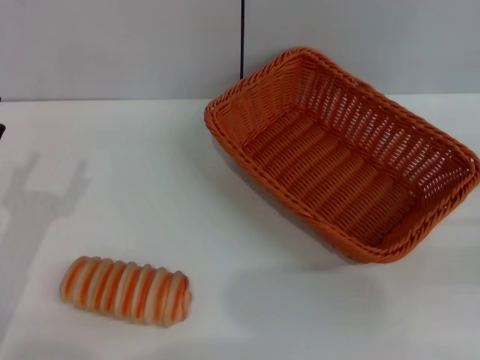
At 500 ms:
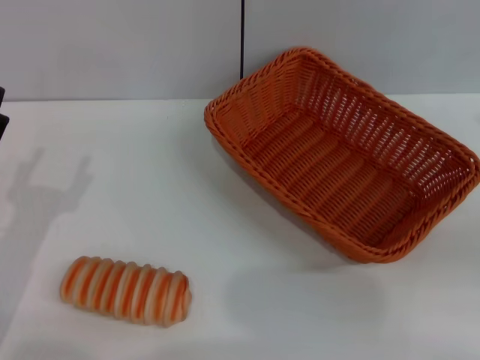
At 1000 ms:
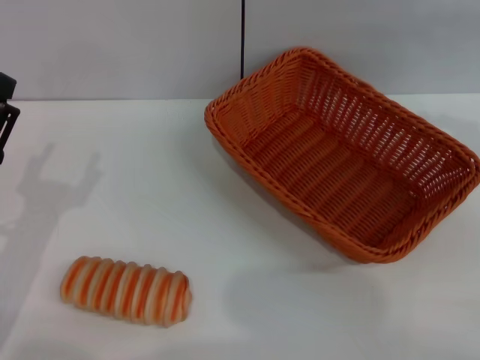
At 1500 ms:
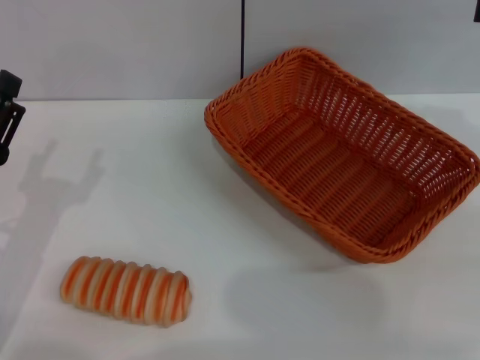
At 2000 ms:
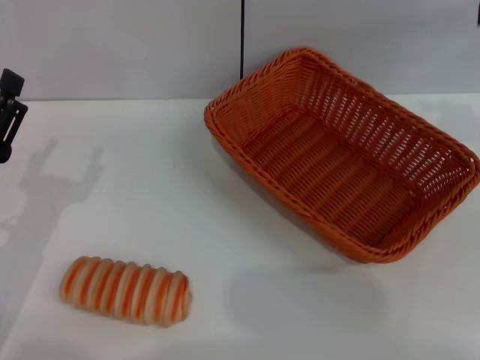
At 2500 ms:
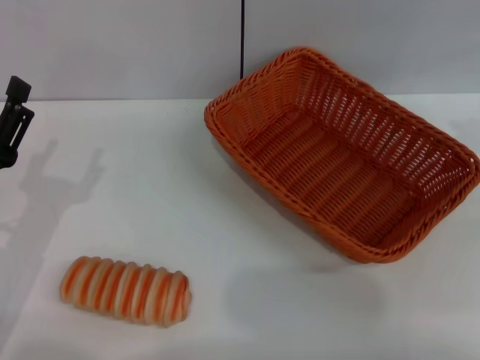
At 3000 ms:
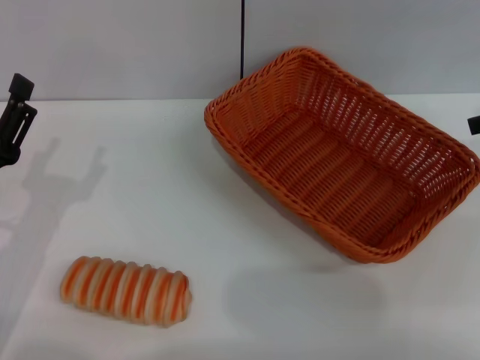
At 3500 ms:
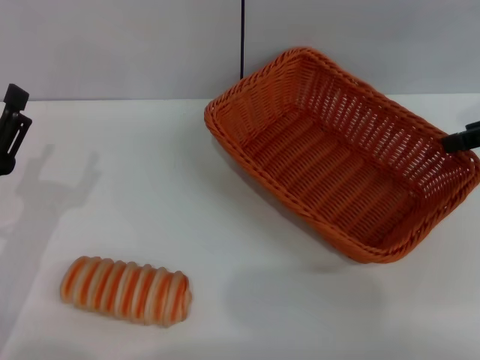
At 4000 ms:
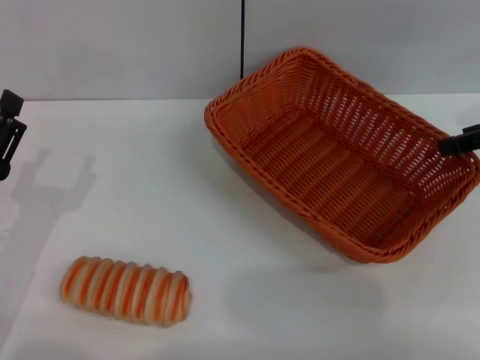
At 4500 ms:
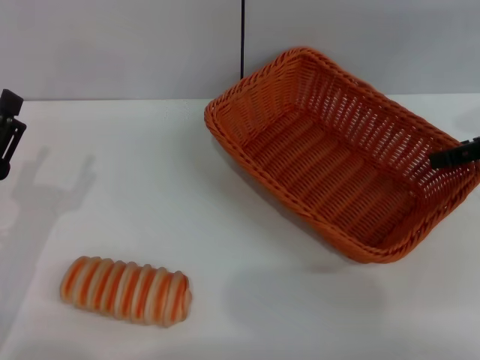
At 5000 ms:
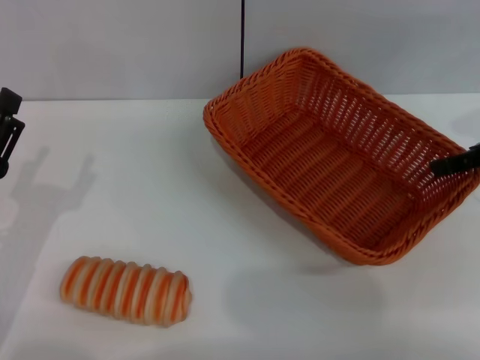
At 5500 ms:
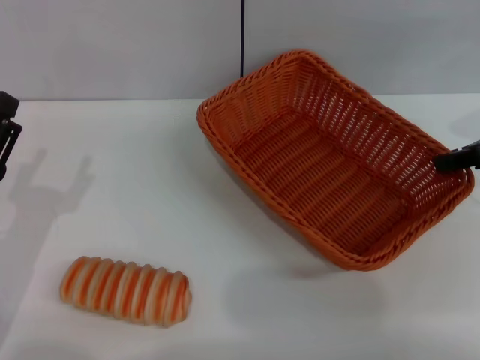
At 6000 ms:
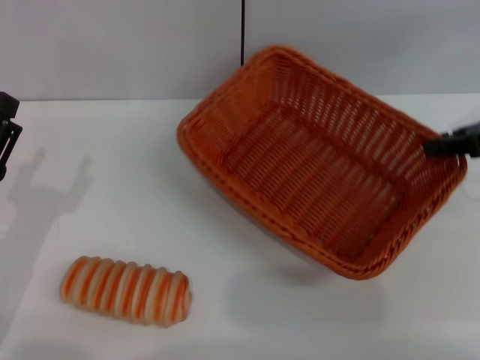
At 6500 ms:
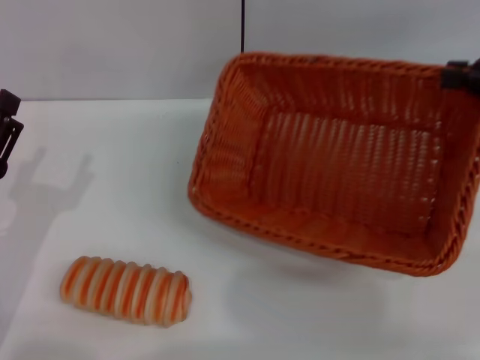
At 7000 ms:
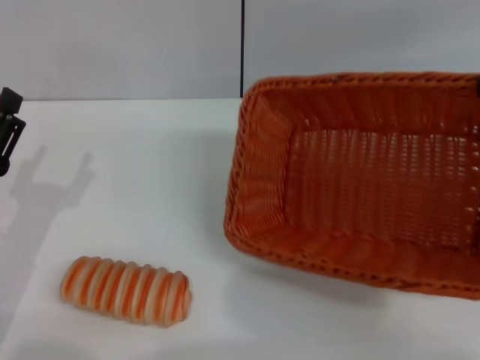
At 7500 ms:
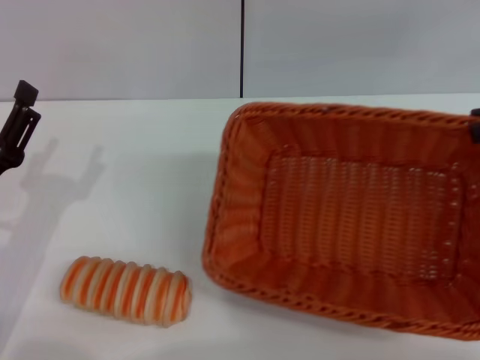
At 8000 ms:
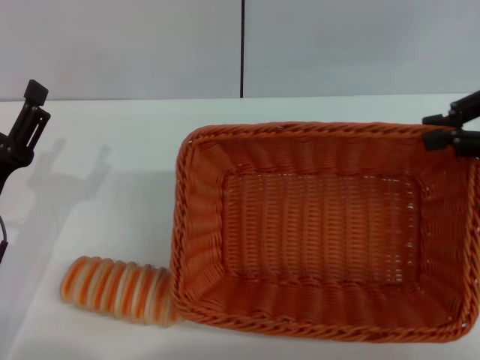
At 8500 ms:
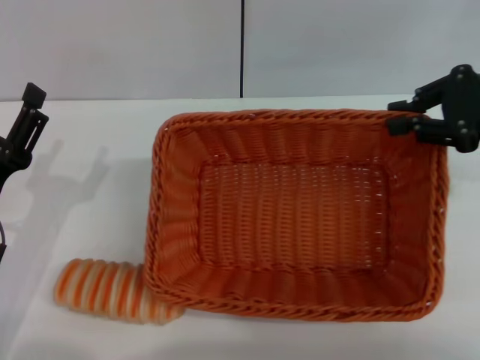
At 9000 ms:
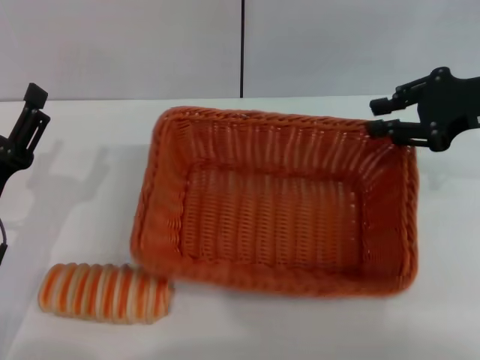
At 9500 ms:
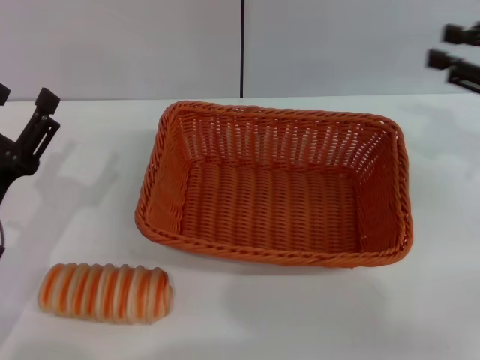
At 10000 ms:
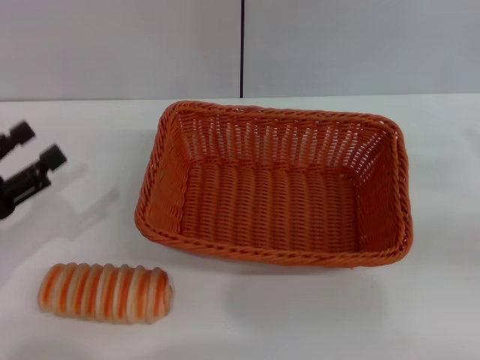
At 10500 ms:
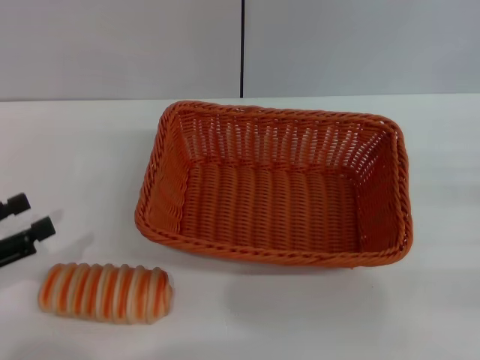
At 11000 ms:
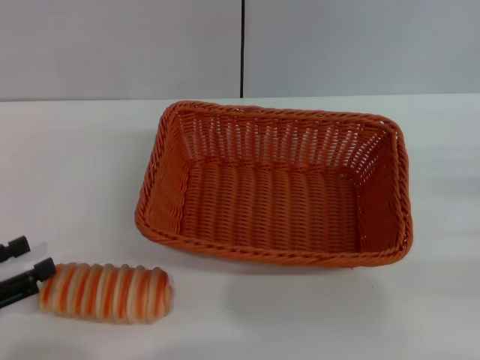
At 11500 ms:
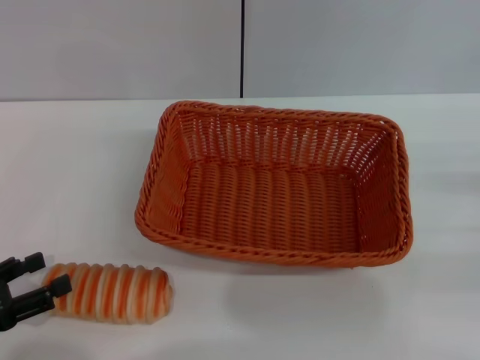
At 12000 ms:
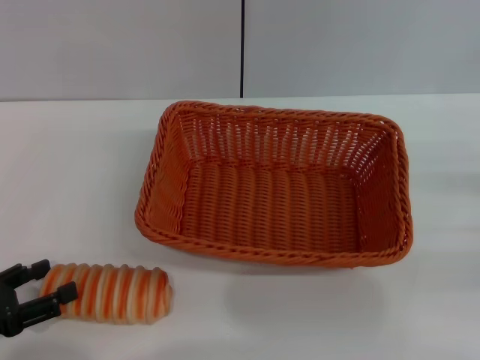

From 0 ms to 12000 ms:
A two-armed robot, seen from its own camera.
Step, from 0 ms to 6500 ms: Pick up the light basket with the right gripper.
Step, from 7000 ms to 9000 ms: Place the light basket in the center of view with the right gripper.
From 4000 ms to 6000 ms: The right gripper closes.
From 8000 ms to 10000 ms: The right gripper goes some 15 cm downward, backward and to the right, and opens its fingers; the left gripper travels to the left by approximately 5 cm.
From 10000 ms to 12000 ms: The left gripper heads backward, covering roughly 5 cm.

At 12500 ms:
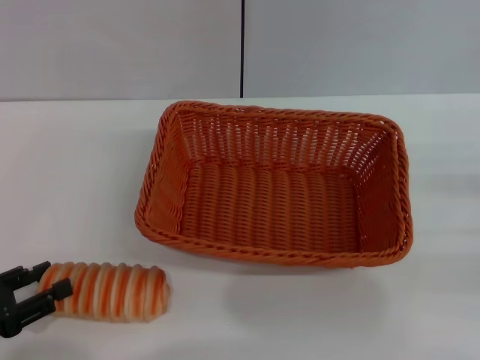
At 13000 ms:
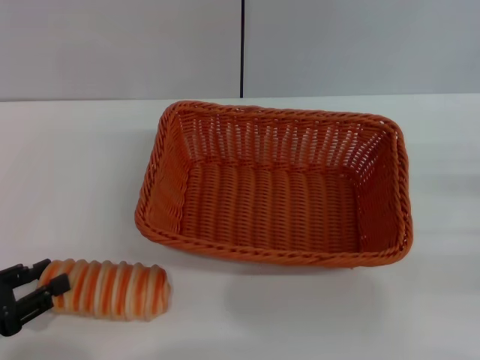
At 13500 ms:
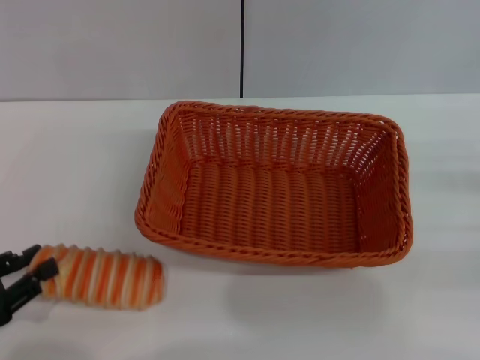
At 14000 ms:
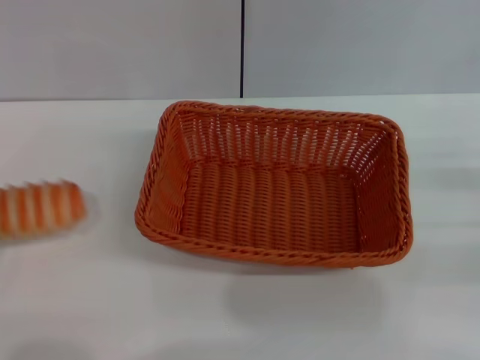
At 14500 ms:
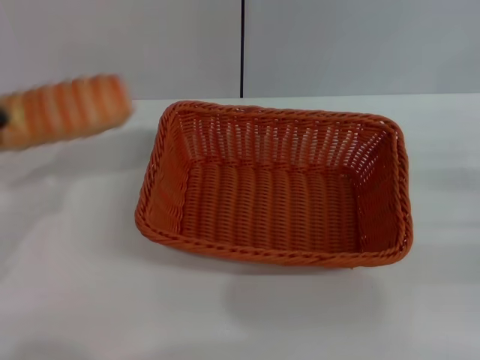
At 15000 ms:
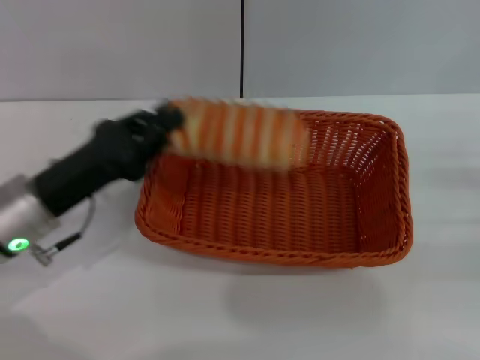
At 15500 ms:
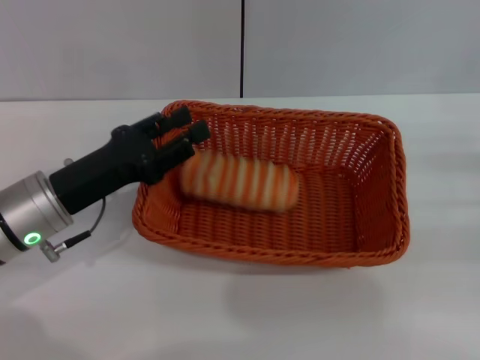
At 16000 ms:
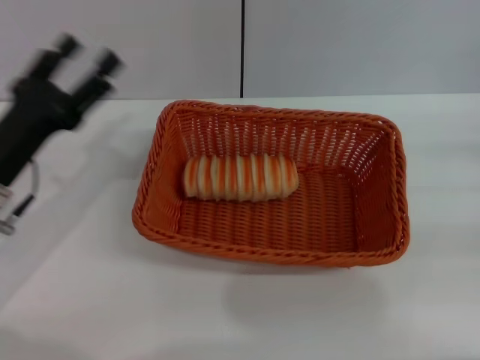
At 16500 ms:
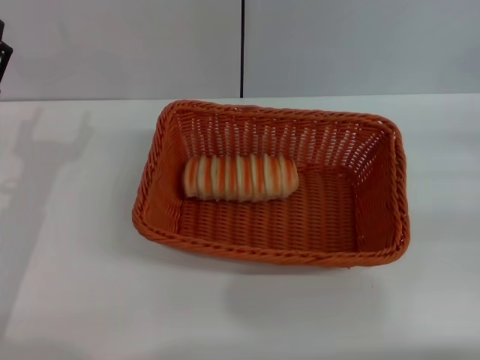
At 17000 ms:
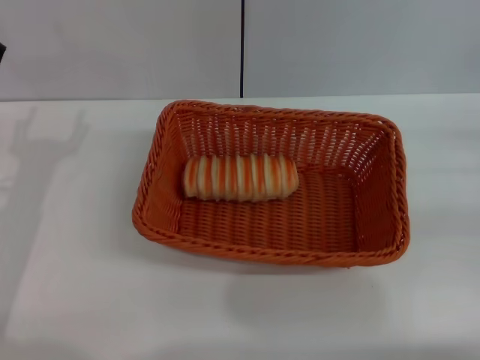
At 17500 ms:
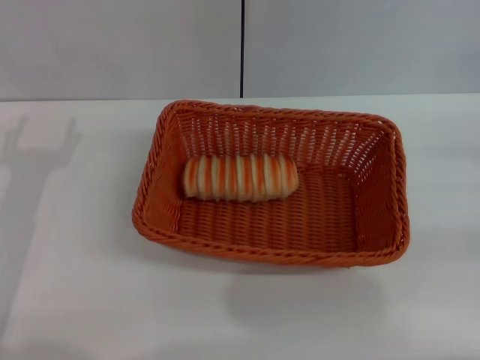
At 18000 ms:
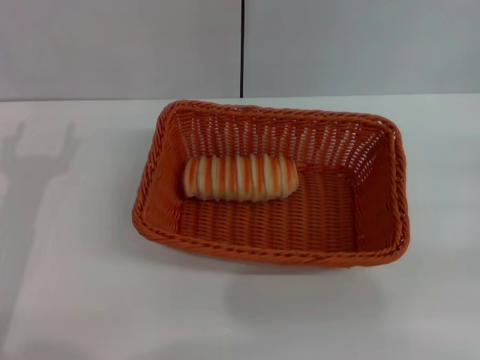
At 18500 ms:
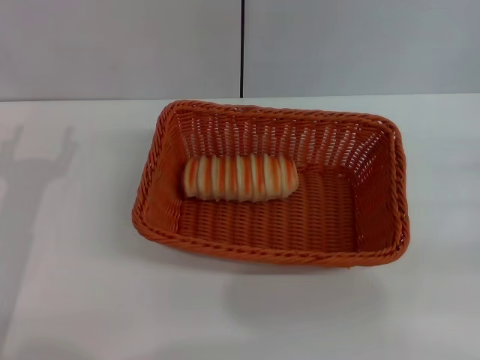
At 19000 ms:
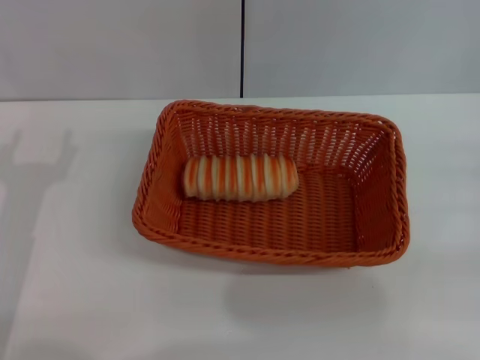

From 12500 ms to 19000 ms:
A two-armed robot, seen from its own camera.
Step, from 14500 ms to 15500 ms: Place the long bread into the light basket with the left gripper.
From 12500 ms to 14500 ms: The left gripper moves forward, about 5 cm, and closes its fingers.
From 14500 ms to 17000 ms: The left gripper is displaced to the right and forward by roughly 10 cm, and opens. Meanwhile the right gripper is displaced forward by about 5 cm.
From 17000 ms to 19000 ms: The right gripper changes place by some 5 cm.

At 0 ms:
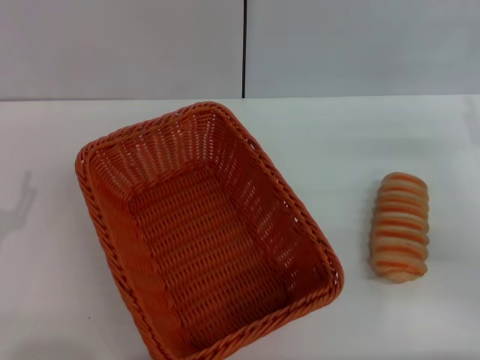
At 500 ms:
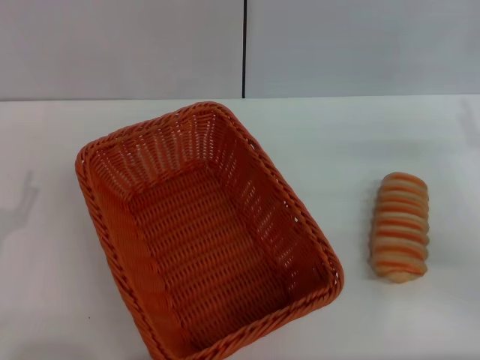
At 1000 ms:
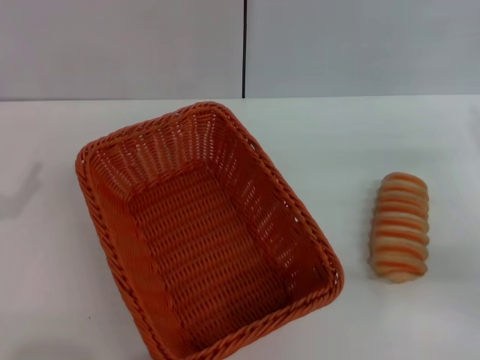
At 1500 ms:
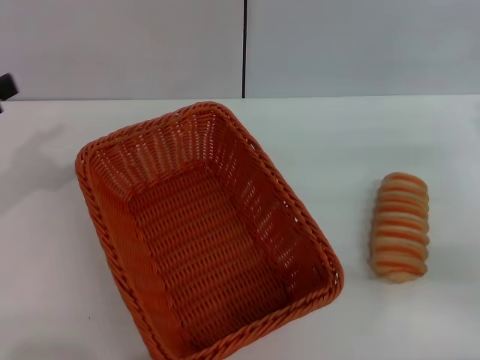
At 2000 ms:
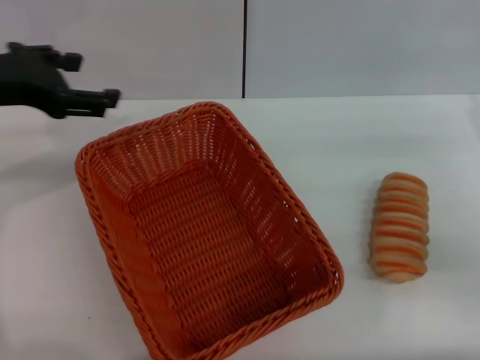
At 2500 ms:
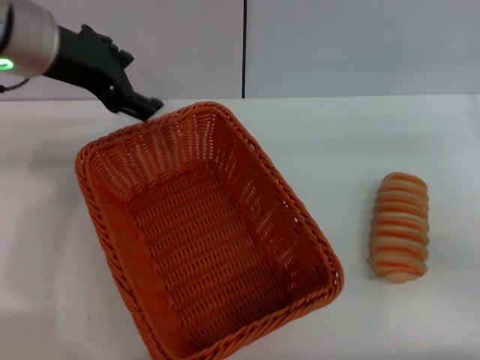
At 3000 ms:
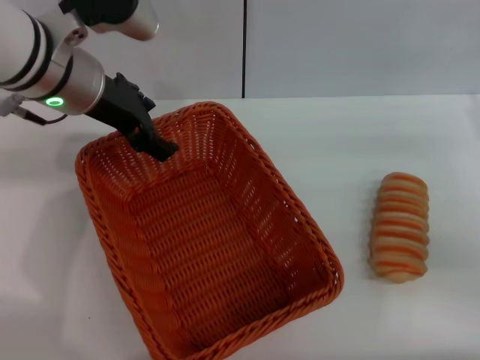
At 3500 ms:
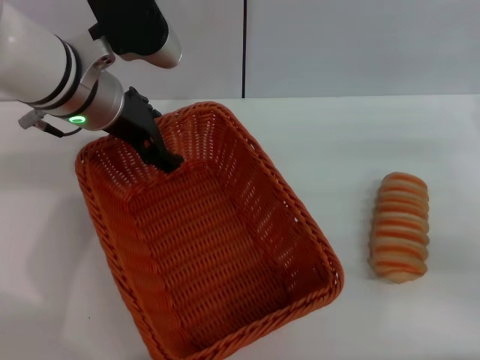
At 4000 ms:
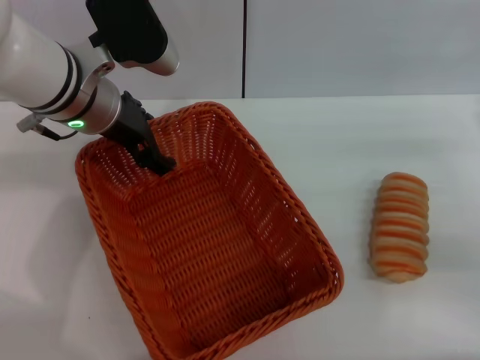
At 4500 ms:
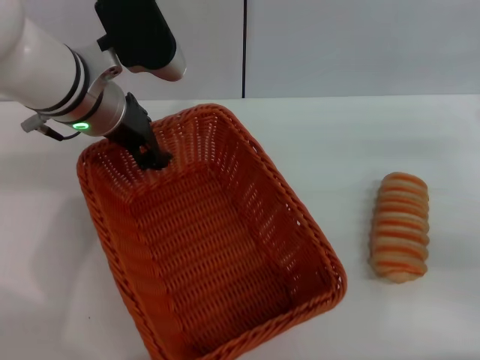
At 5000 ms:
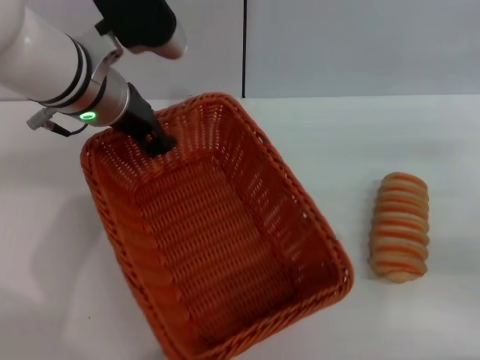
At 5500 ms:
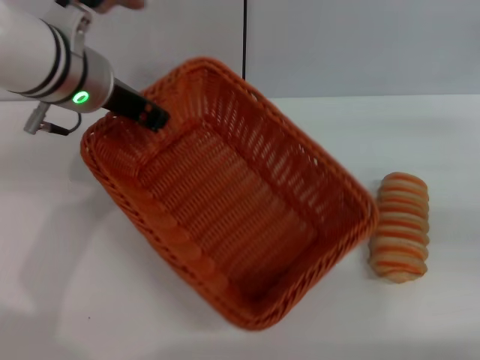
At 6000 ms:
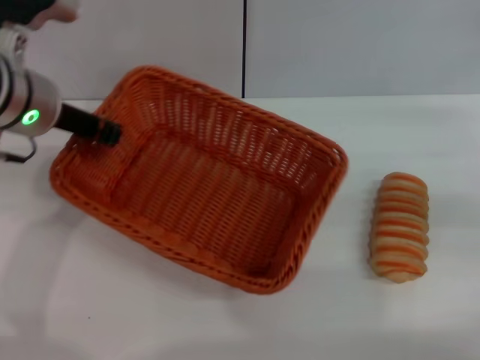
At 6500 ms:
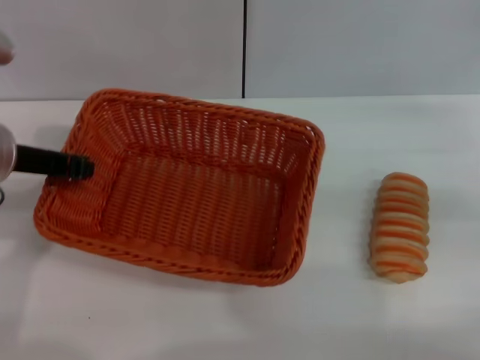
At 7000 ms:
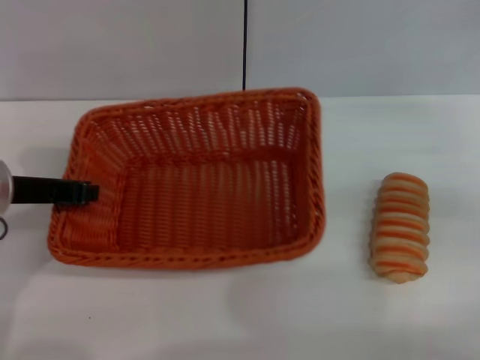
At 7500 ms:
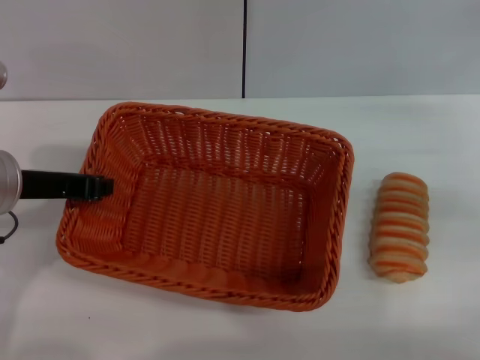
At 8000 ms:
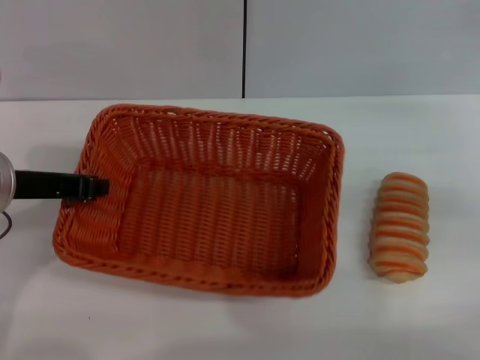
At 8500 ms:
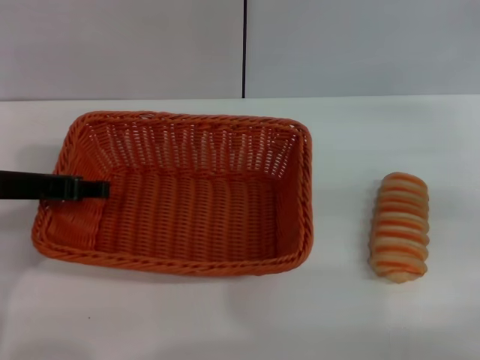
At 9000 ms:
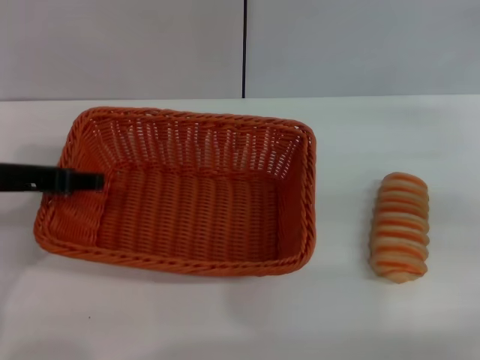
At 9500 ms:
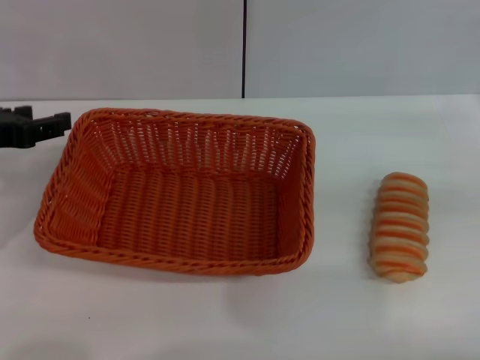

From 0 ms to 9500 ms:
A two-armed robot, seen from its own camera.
Step, from 0 ms to 5500 ms: Pick up the light basket with the left gripper.
From 0 ms to 2000 ms: The left gripper heads upward and forward, covering some 25 cm.
From 2000 ms to 4000 ms: The left gripper shifts approximately 15 cm to the right, forward and downward.
From 4000 ms to 5500 ms: The left gripper closes its fingers, while the right gripper moves roughly 5 cm.
From 5500 ms to 7500 ms: The left gripper goes roughly 10 cm backward and to the left.
From 7500 ms to 9500 ms: The left gripper goes roughly 5 cm to the left, and opens.
